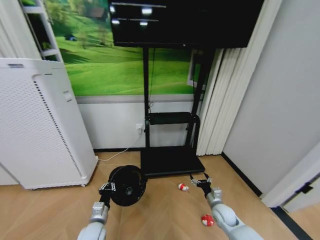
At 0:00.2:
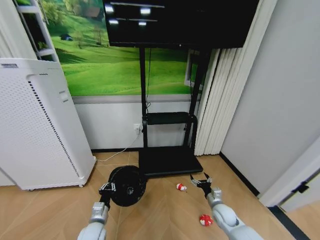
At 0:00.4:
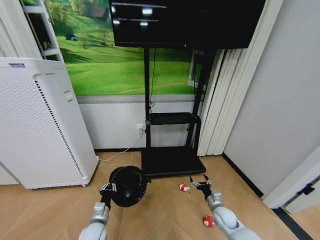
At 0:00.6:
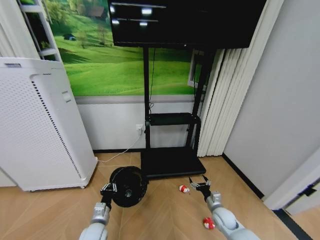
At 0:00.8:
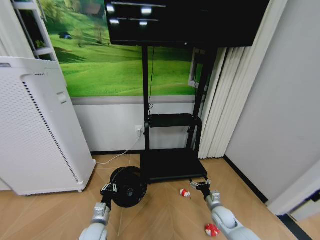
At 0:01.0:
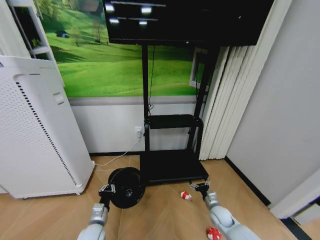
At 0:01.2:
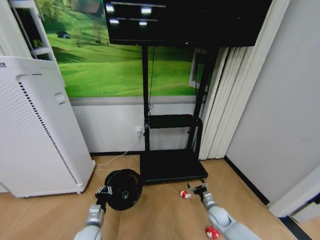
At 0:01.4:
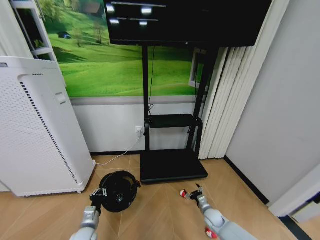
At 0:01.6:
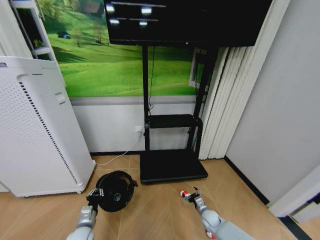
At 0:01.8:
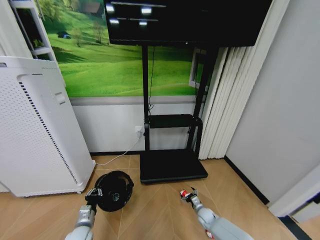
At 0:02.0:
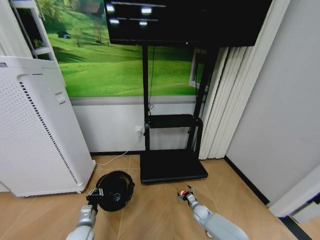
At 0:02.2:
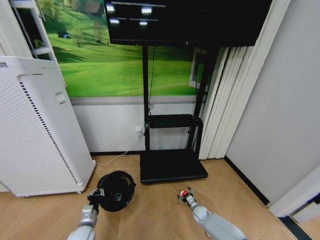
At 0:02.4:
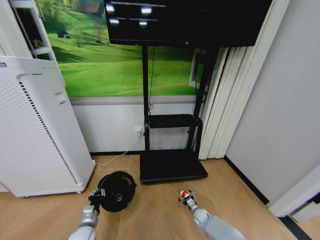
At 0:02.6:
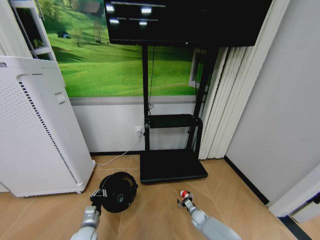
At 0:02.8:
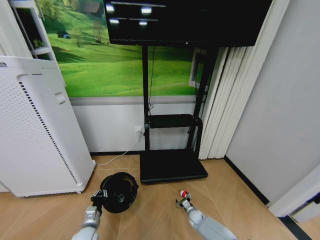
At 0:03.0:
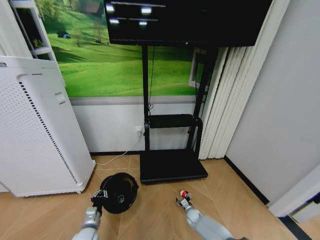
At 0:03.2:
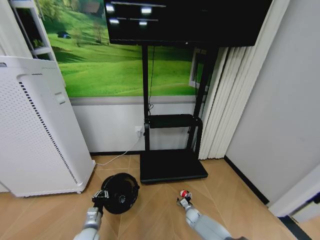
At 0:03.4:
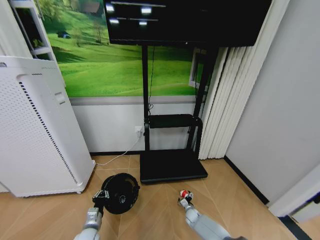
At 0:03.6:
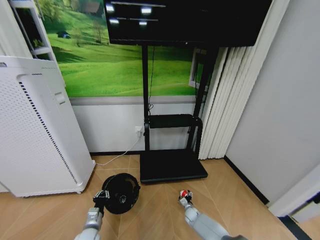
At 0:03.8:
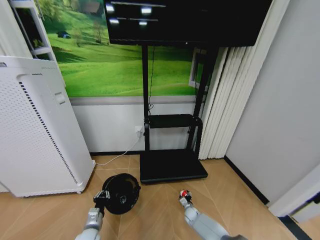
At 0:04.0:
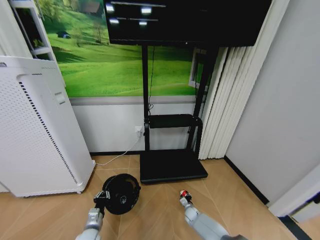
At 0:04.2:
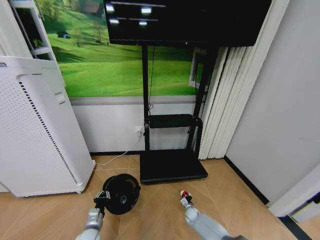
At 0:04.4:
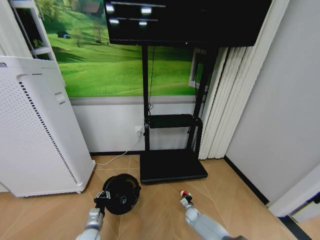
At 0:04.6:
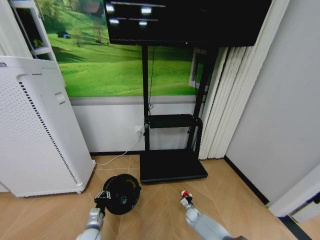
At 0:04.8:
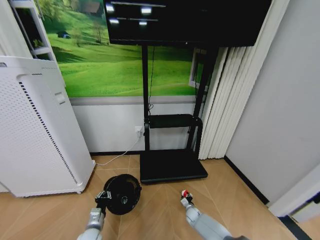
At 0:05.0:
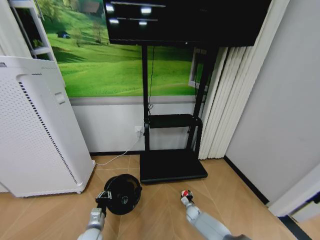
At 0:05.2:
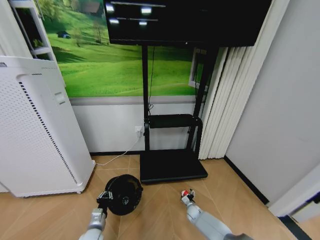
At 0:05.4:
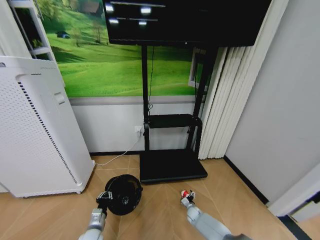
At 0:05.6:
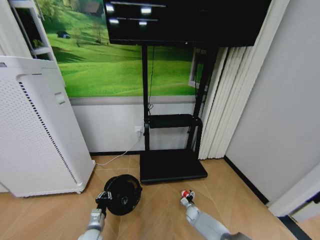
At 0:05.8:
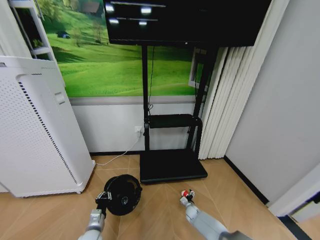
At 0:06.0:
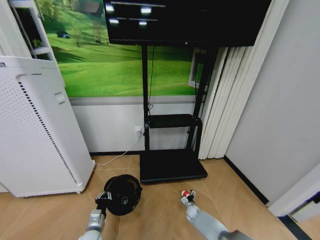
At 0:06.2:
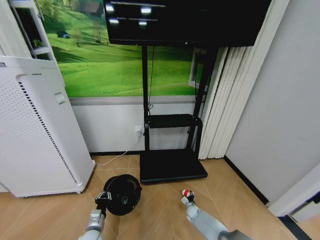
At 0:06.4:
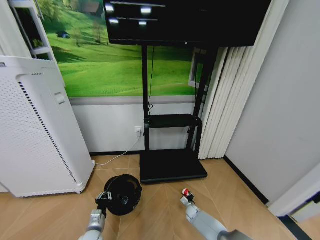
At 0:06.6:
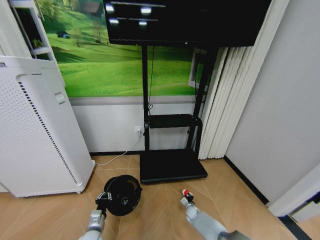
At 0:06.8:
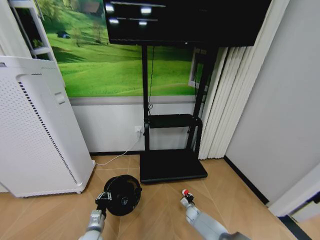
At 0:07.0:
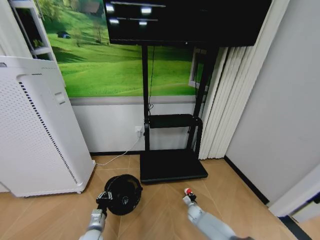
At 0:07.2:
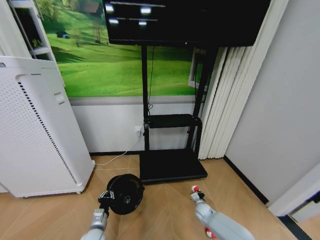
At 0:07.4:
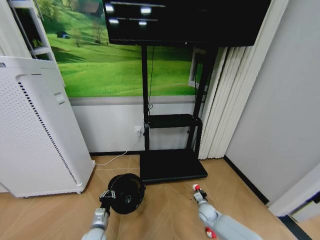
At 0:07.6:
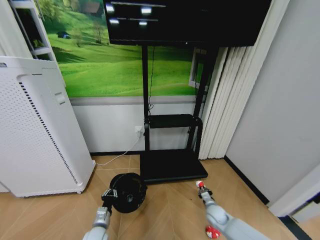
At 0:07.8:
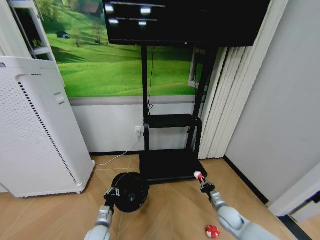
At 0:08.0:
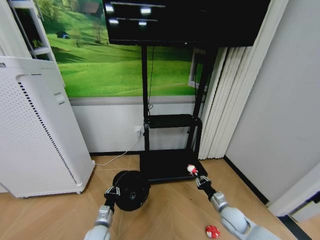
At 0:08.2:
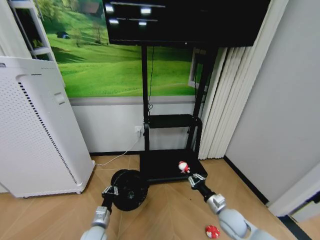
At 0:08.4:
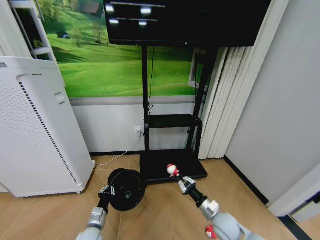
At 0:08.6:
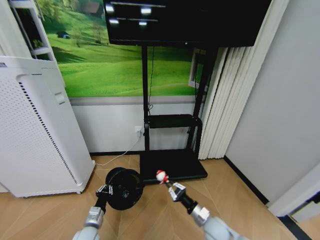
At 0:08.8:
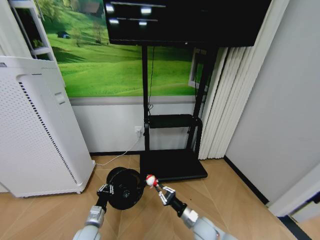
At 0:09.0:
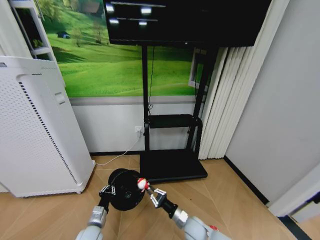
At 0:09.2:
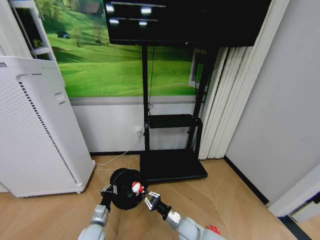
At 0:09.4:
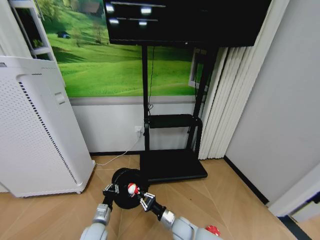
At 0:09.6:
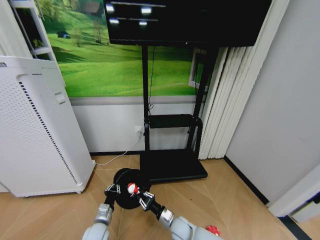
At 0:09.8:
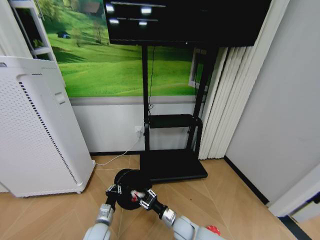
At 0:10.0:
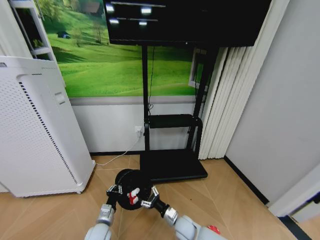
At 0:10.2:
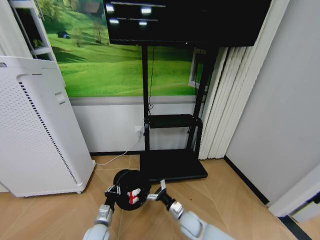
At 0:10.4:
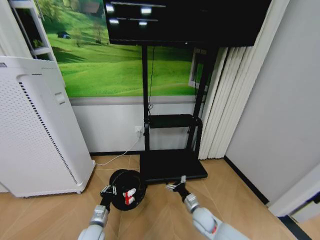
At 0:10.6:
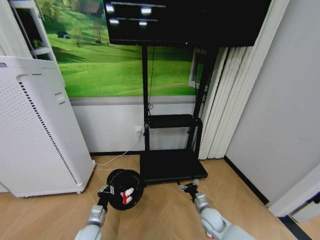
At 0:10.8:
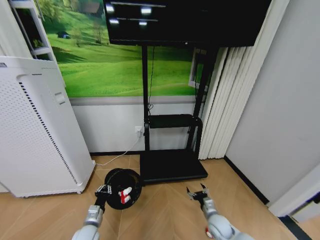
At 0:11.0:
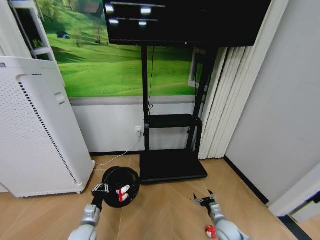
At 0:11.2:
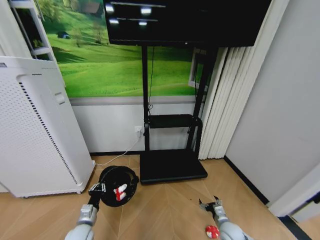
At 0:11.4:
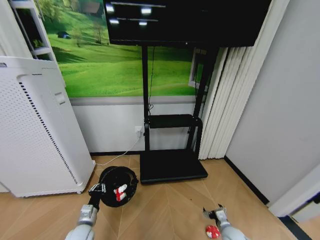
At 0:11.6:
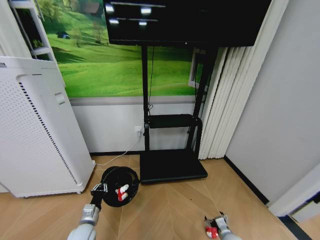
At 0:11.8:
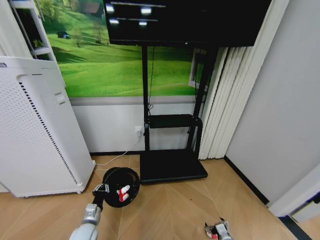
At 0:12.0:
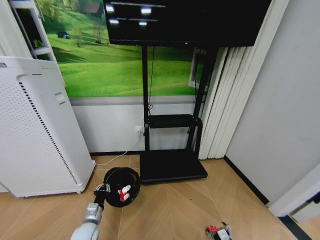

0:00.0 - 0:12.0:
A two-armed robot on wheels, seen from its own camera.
Task of the whole recording: Pick up the trash bin and place the garbage on the floor into it.
0:00.0 - 0:01.6: The right gripper moves downward, approximately 10 cm; the left gripper travels to the left by approximately 5 cm.
0:01.6 - 0:03.0: The right gripper heads downward and to the left, covering some 10 cm.
0:03.0 - 0:04.4: The right gripper closes.
0:04.4 - 0:06.0: The right gripper opens.
0:06.0 - 0:07.6: The right gripper moves upward, to the right and backward, about 20 cm, and closes up.
0:07.6 - 0:09.0: The right gripper is displaced to the left by roughly 15 cm.
0:09.0 - 0:10.4: The right gripper opens up.
0:10.4 - 0:12.0: The right gripper travels to the right, backward and downward by approximately 20 cm.

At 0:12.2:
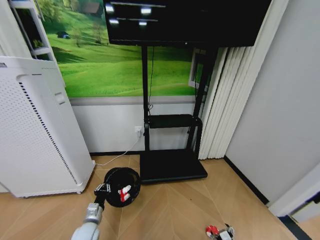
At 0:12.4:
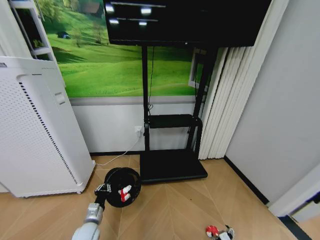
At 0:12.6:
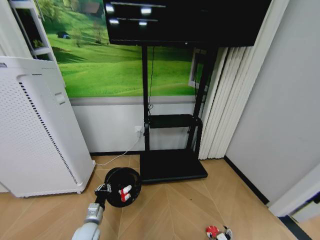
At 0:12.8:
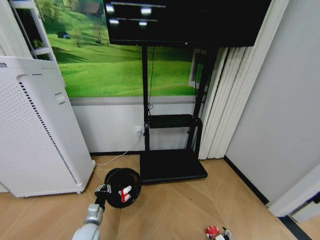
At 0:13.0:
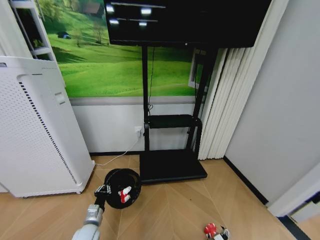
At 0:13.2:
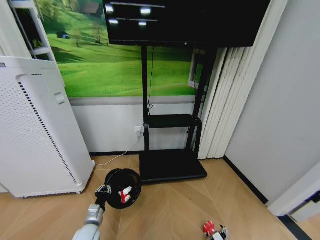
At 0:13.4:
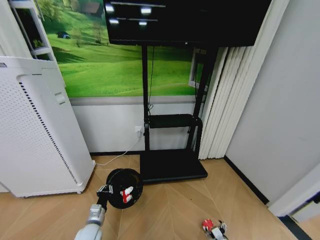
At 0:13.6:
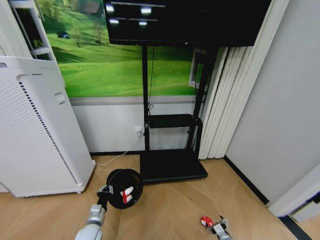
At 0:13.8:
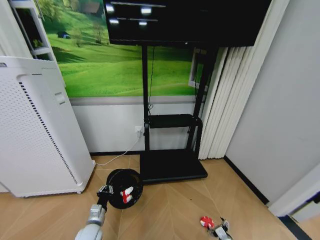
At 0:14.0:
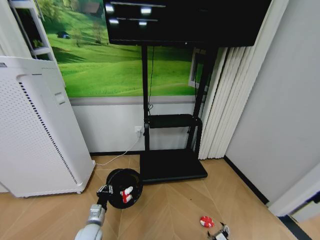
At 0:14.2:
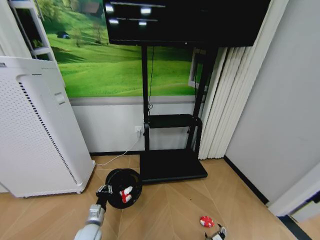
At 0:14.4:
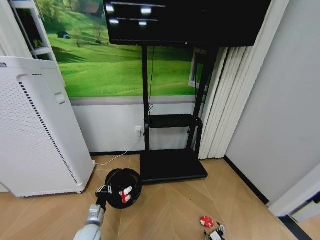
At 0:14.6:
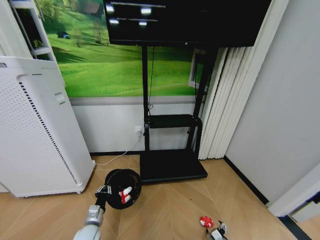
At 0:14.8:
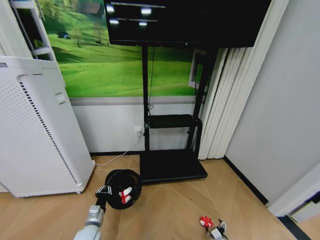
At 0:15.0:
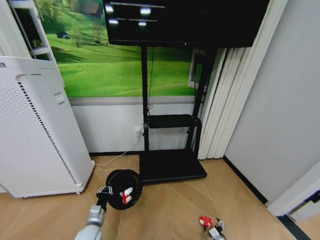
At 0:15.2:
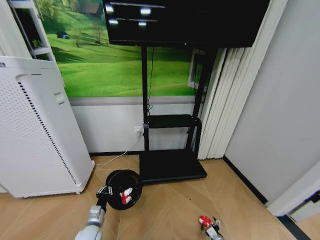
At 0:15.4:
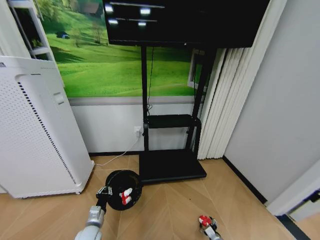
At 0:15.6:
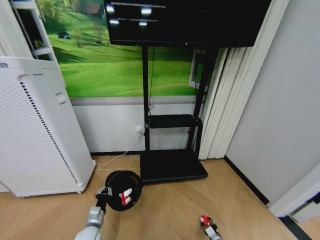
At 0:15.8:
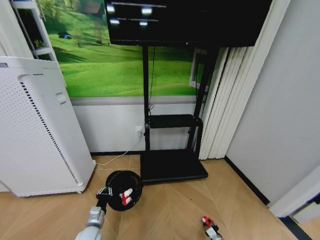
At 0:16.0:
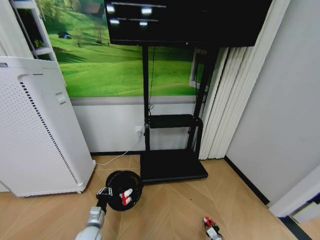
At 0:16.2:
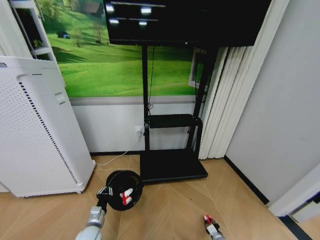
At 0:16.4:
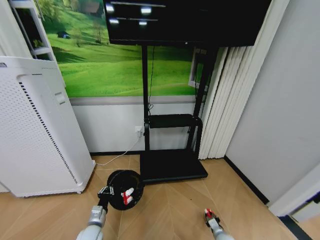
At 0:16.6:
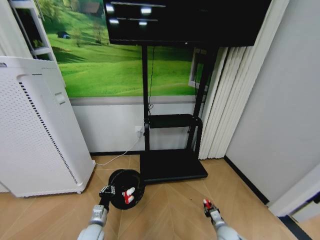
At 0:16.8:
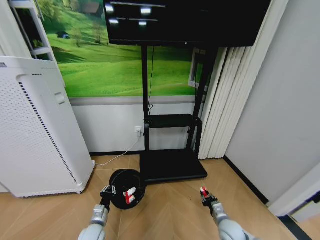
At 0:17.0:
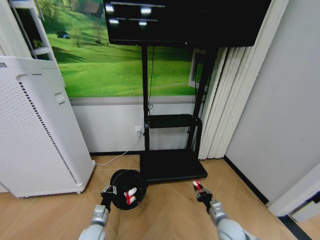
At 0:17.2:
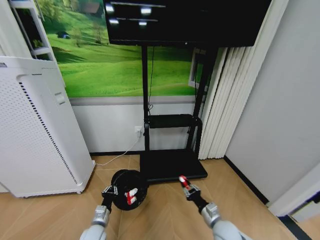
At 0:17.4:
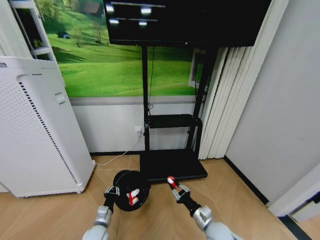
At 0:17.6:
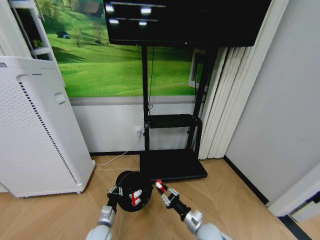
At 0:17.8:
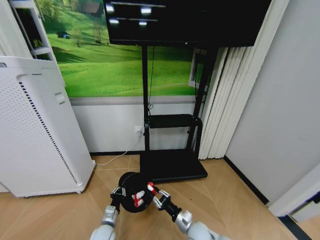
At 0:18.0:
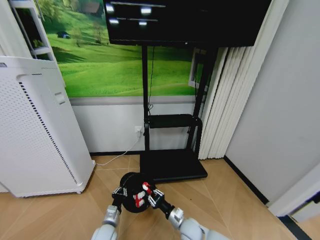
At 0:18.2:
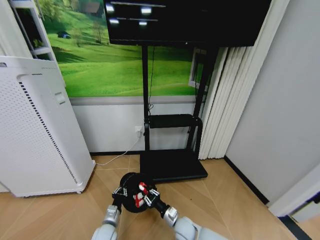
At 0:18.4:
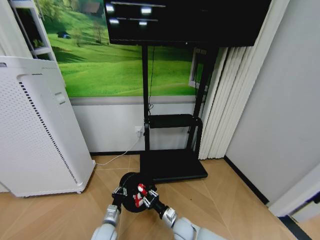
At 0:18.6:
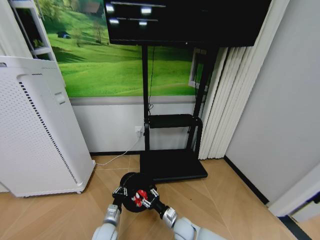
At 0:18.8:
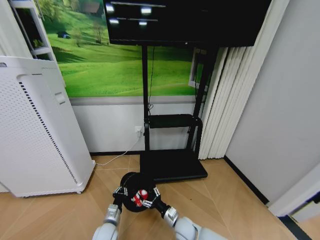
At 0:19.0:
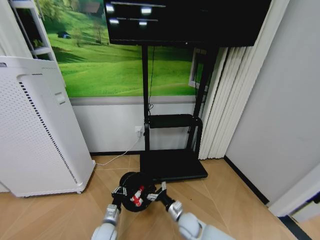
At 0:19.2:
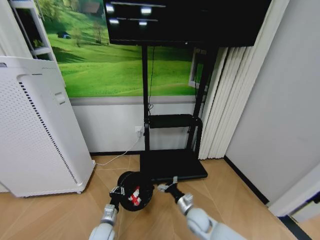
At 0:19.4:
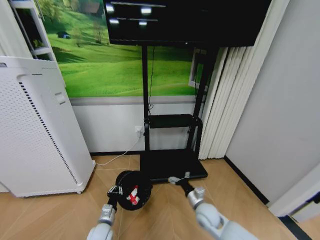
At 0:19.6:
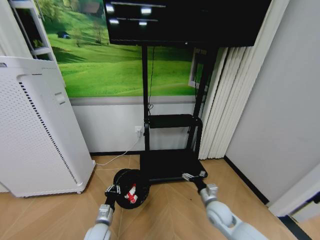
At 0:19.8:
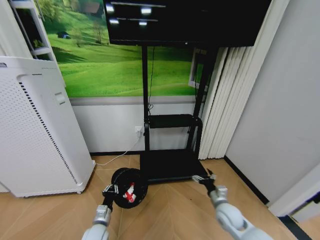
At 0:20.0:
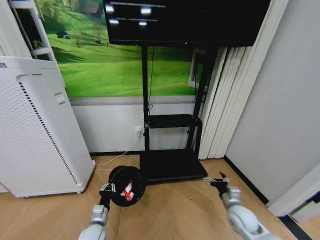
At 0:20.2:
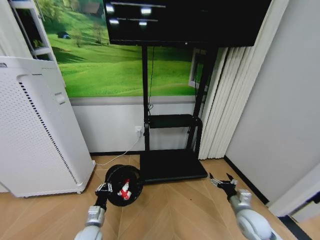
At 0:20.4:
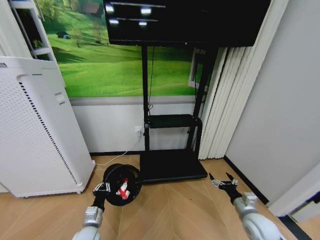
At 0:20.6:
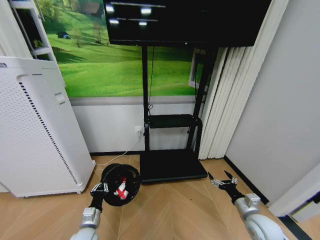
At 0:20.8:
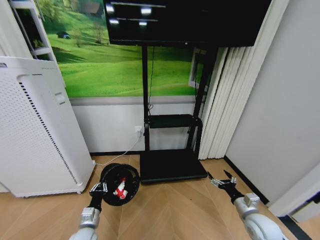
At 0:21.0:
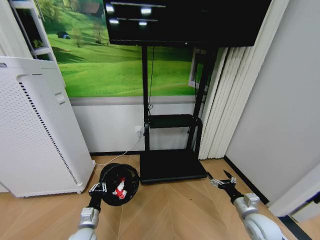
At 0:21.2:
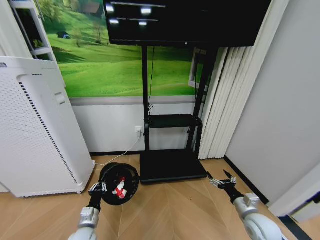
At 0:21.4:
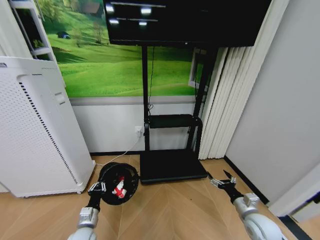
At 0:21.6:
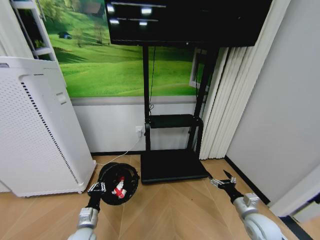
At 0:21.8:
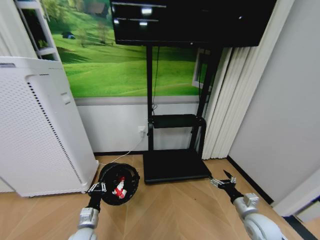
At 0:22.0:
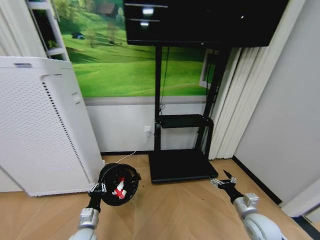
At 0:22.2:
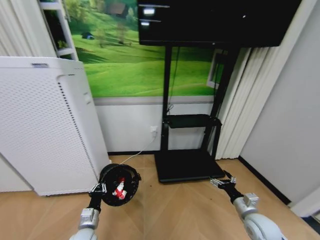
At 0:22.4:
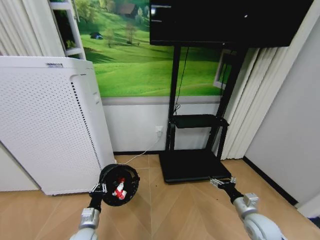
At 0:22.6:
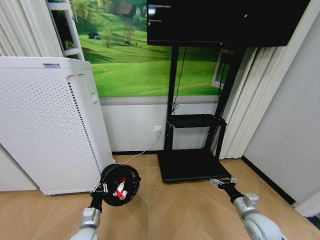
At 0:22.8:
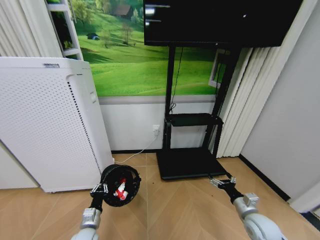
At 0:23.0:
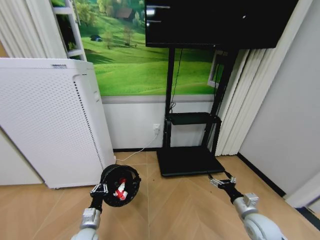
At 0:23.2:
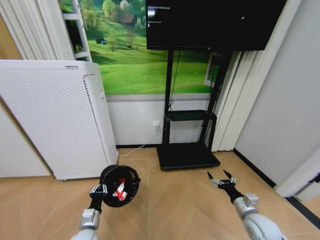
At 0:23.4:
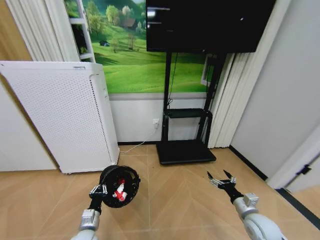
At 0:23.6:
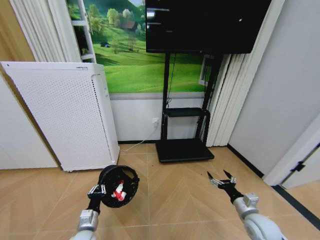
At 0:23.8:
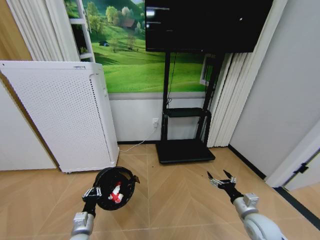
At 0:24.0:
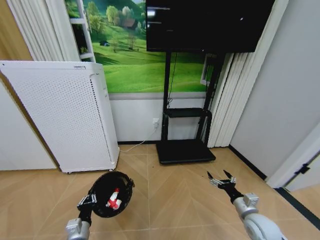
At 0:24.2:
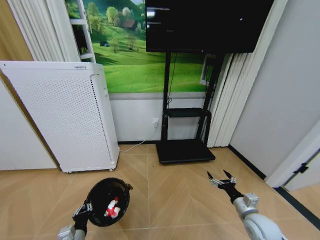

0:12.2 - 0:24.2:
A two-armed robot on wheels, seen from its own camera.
Task of the whole recording: Pick up the trash bin and place the garbage on the floor into it.
0:12.2 - 0:13.8: The grippers move only a little.
0:13.8 - 0:15.2: The right gripper travels downward by about 5 cm.
0:15.2 - 0:16.6: The right gripper shifts by approximately 5 cm, and closes.
0:16.6 - 0:18.2: The right gripper moves to the left and upward, about 25 cm, while the left gripper moves to the right, about 5 cm.
0:18.2 - 0:19.8: The right gripper heads to the right and upward, covering roughly 20 cm, and opens up.
0:19.8 - 0:21.2: The right gripper heads to the right, covering some 10 cm. The left gripper ends up about 5 cm from where it was.
0:22.6 - 0:24.2: The left gripper shifts roughly 5 cm backward.
